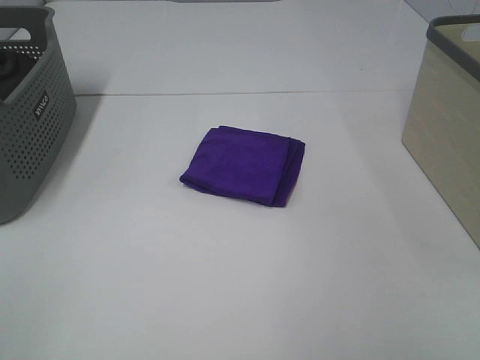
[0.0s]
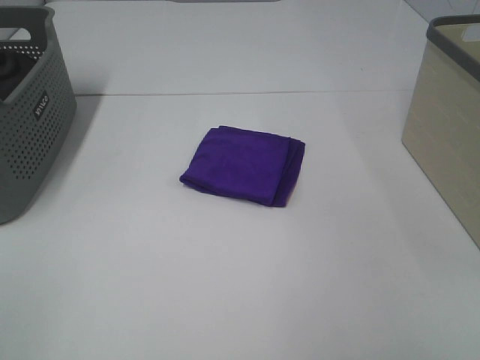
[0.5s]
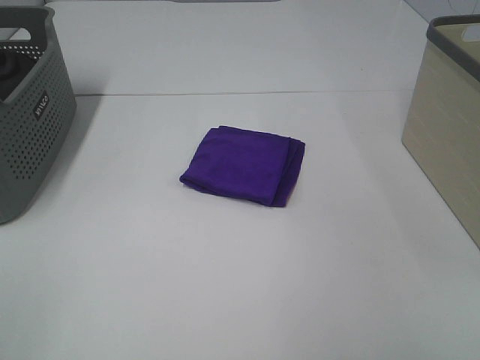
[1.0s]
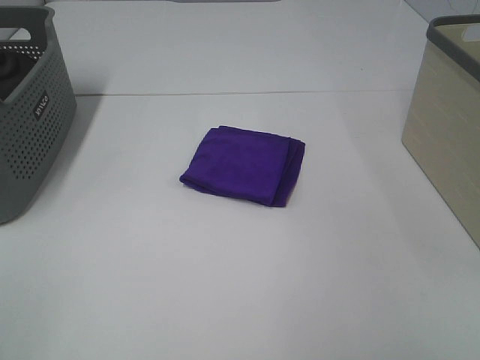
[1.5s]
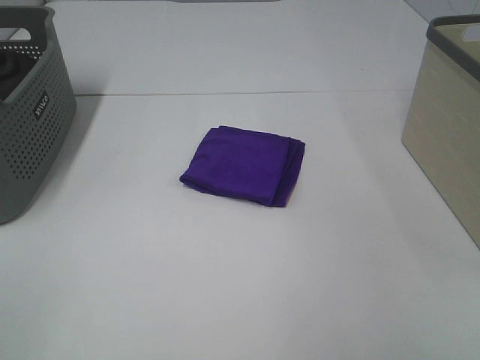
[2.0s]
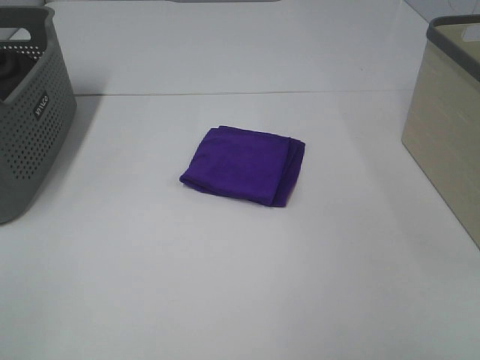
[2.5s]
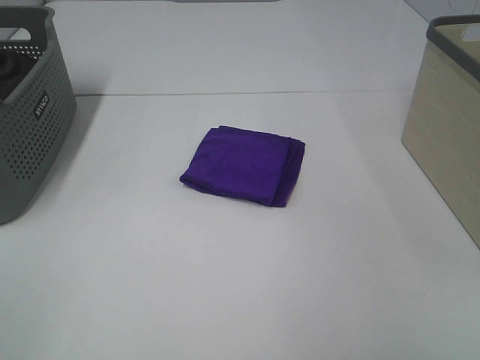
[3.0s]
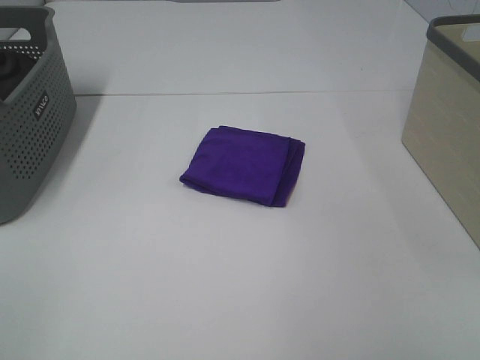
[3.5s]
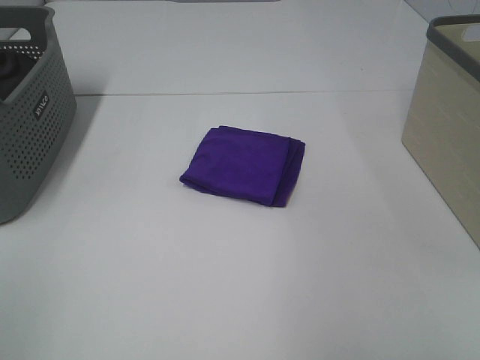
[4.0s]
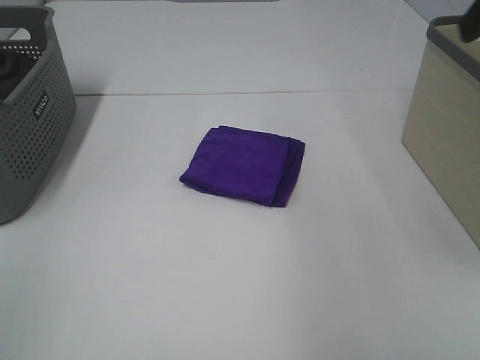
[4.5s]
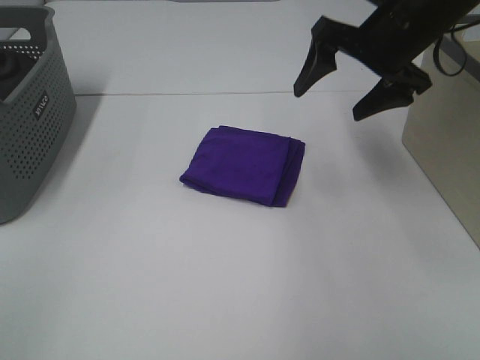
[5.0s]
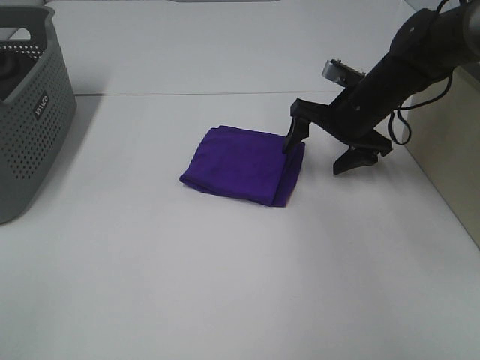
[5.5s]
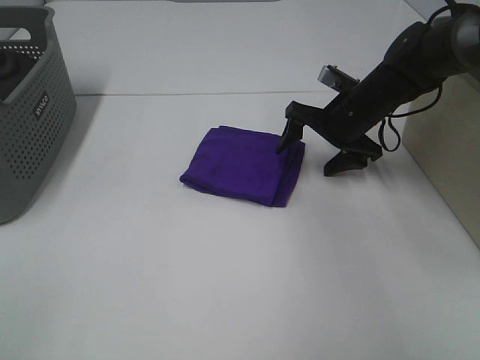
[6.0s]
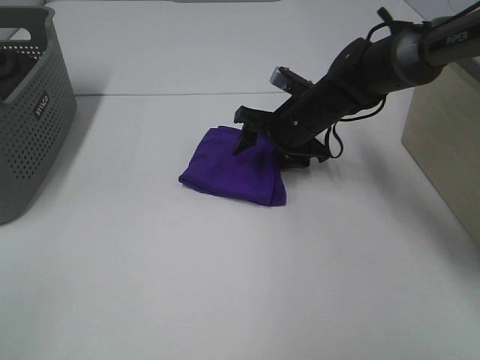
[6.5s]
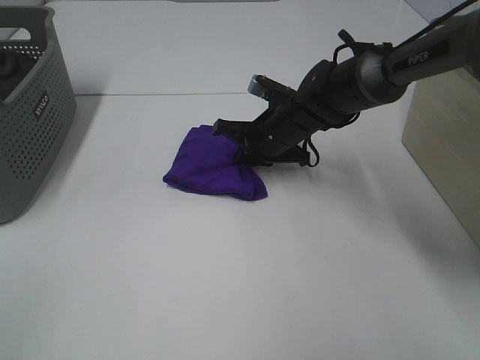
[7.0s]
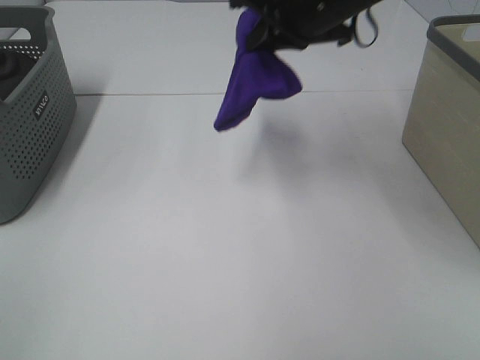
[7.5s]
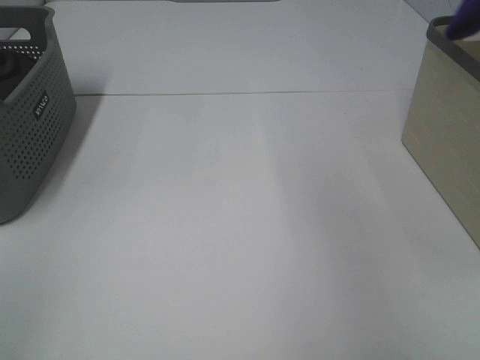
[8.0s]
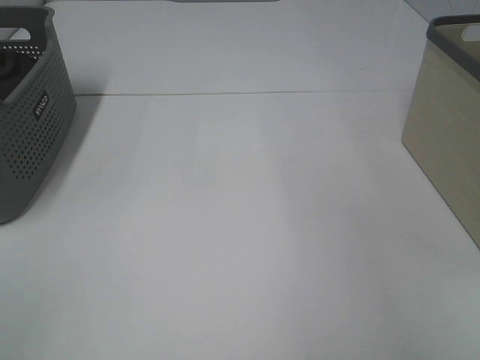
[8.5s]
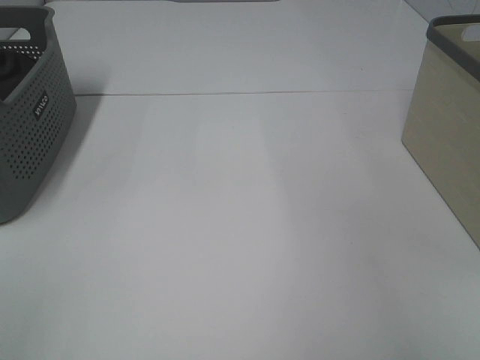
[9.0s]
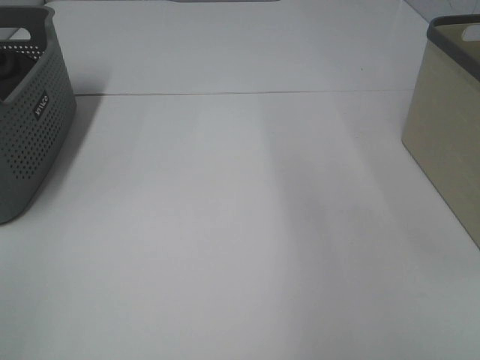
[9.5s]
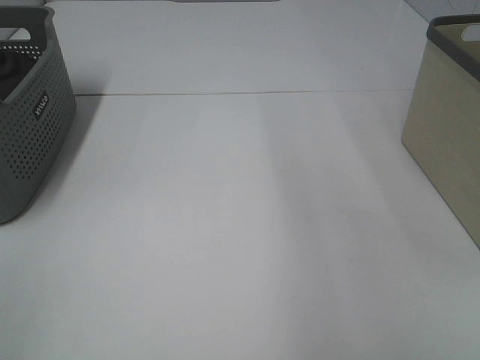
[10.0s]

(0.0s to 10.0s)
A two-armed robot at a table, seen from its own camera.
Step, 0.0s - 6.5s: Right hand: grab the folded purple towel.
Step, 7.0s - 9.0s: Right hand: place the purple towel in right basket.
0.0s - 2.0s: Neither gripper changes place.
4.0s - 6.0s: The right gripper moves forward and downward, about 50 cm.
6.0s - 8.0s: The right gripper heads upward and to the right, covering some 35 cm, and closes its fingers.

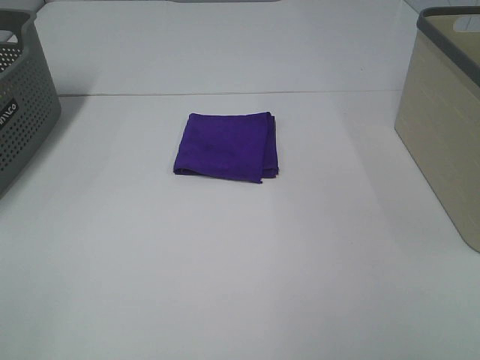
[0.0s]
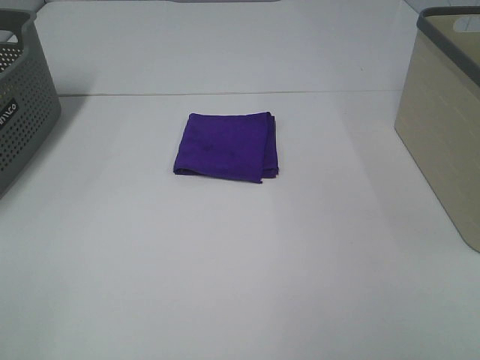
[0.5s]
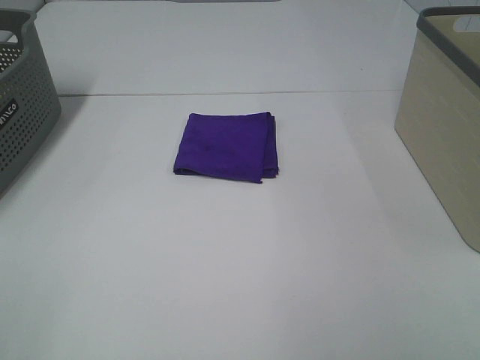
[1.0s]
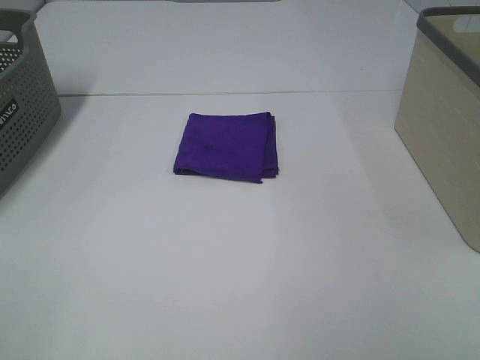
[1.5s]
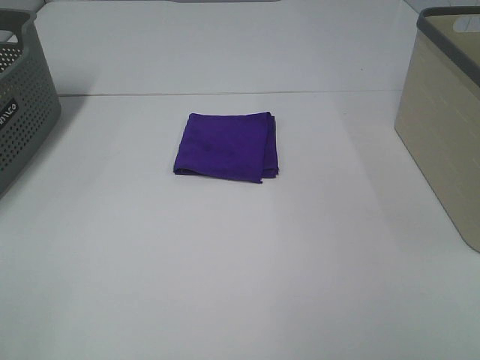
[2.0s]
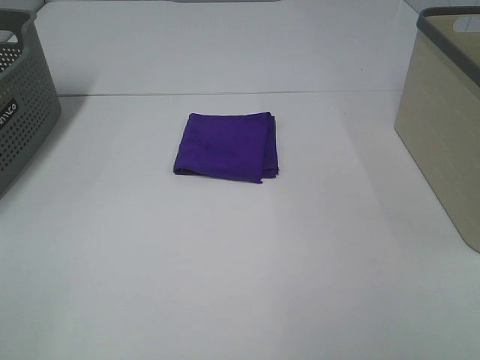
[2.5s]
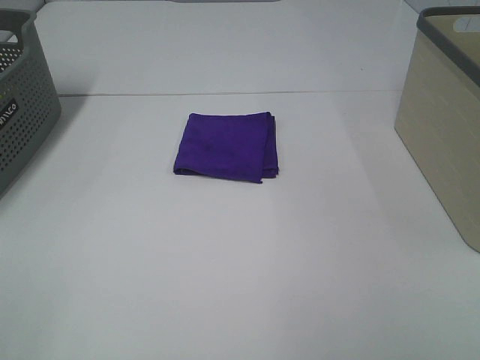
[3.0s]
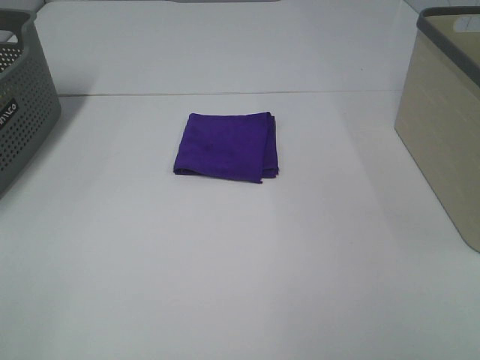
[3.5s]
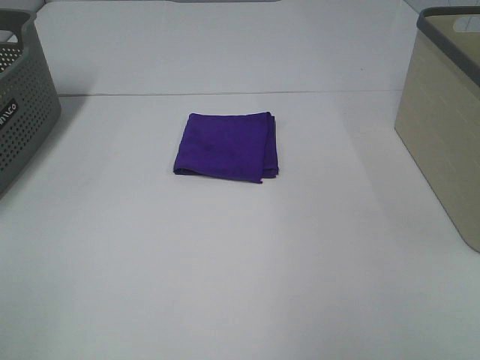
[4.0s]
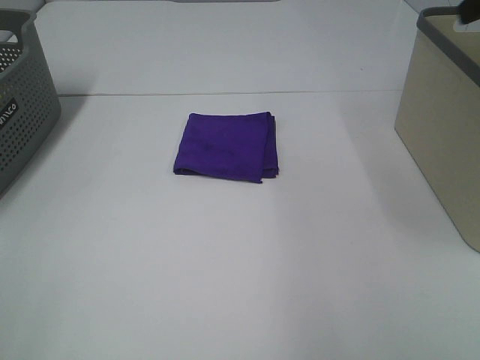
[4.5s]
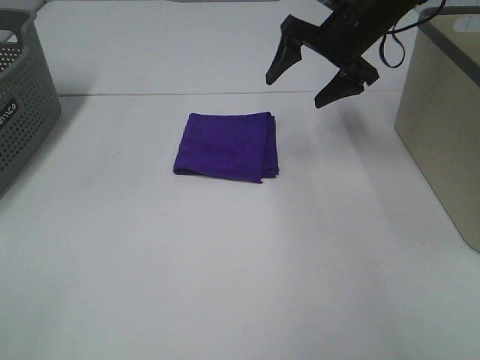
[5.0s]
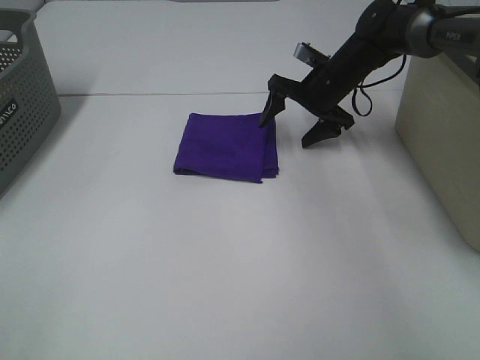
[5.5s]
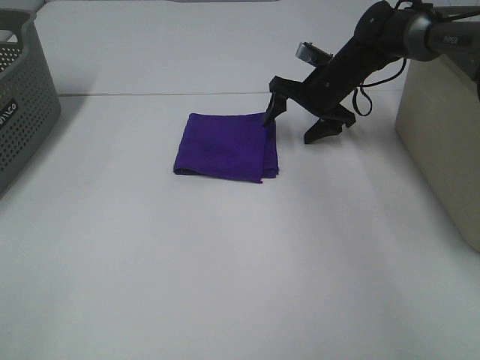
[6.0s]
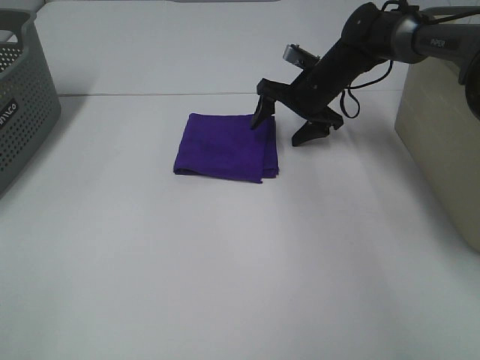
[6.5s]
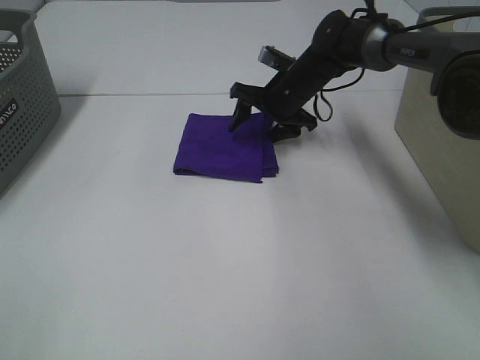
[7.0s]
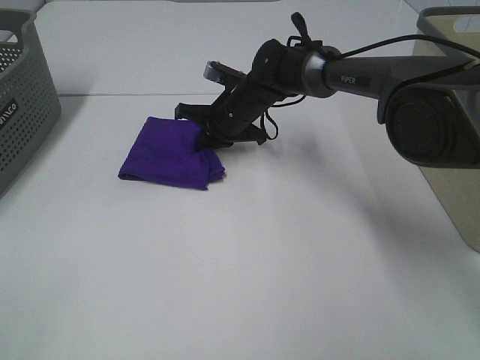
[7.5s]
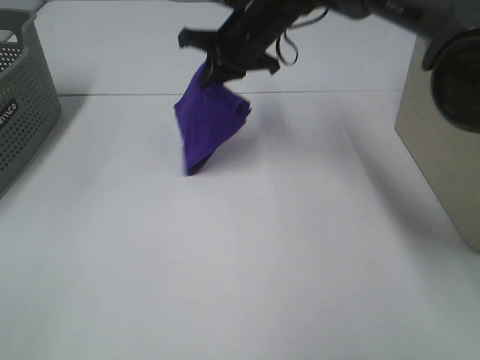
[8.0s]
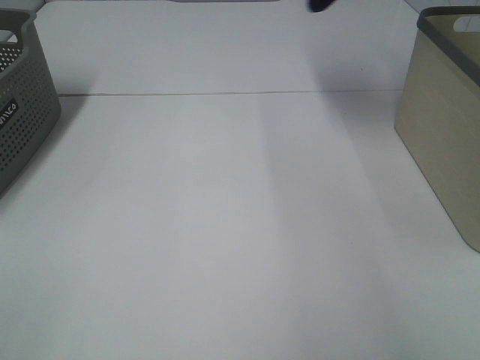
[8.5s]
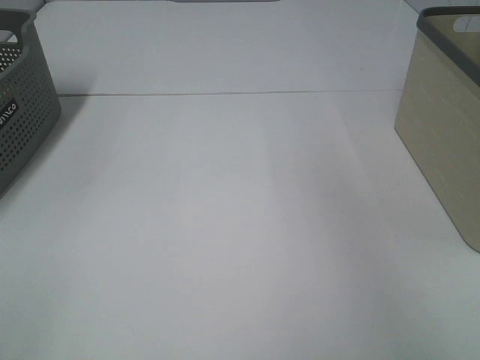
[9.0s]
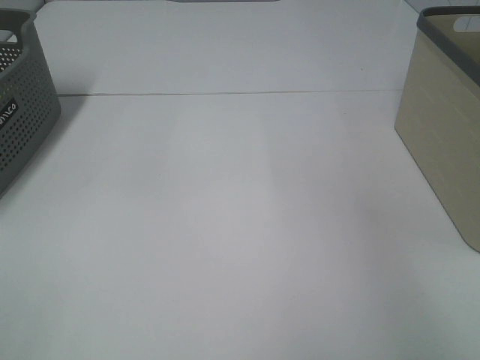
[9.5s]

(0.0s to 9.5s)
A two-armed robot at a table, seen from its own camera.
Step, 0.0s - 7.0s: Right hand: grab the folded purple towel.
0.0s - 2.0s: The two grippers keep their place.
4.0s - 5.5s: The right gripper heads forward and downward, covering about 50 cm.
5.5s - 7.5s: The right gripper heads to the left, covering about 15 cm, and closes its fingers.
7.5s - 9.5s: The right gripper goes approximately 40 cm to the right and upward, and opens.
